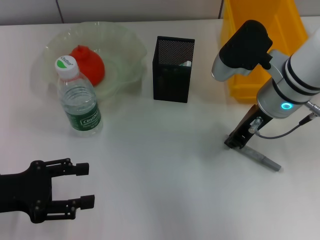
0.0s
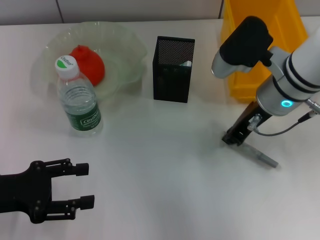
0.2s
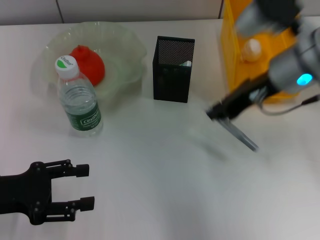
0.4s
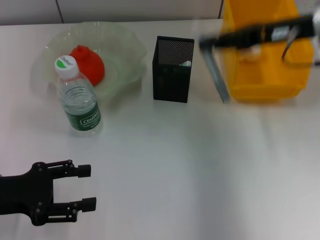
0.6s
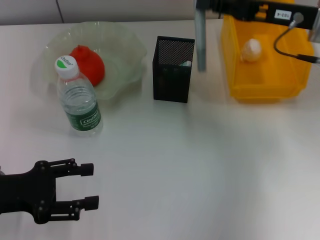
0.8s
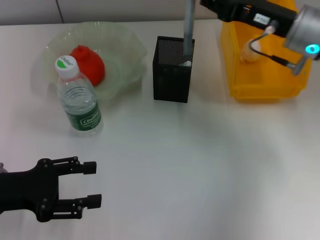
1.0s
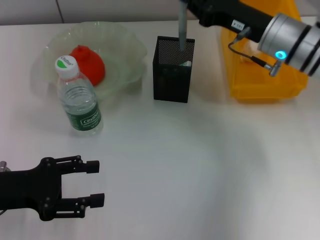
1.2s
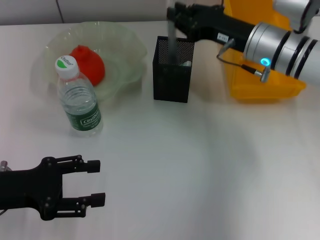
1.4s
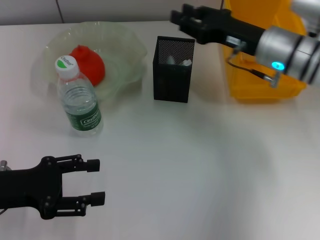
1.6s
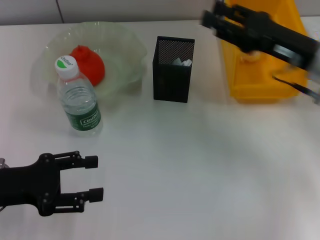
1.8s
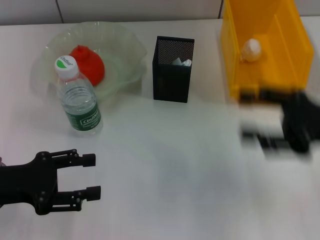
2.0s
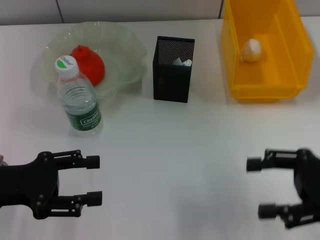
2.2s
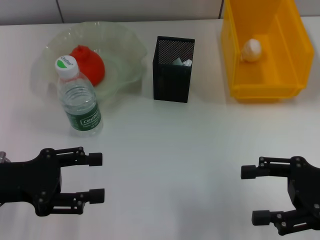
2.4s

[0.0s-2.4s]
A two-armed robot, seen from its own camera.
Step, 0.2s to 1.4s: Place the gray glue into the pen holder with the right hand.
0.0s to 1.2s: The right gripper reaches roughly 10 cm upward, then returns.
1.2s to 2.4s: The right gripper heads backward and to the right, covering about 20 cm, and opens up.

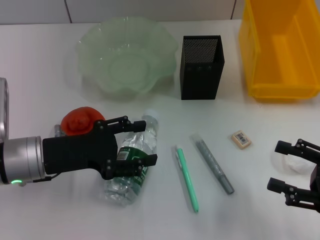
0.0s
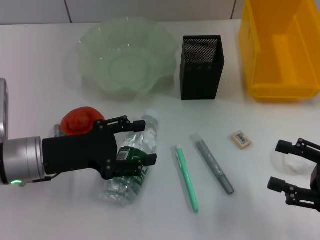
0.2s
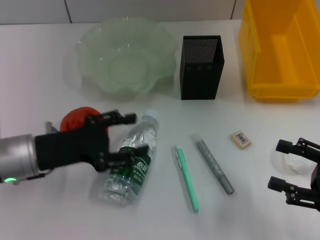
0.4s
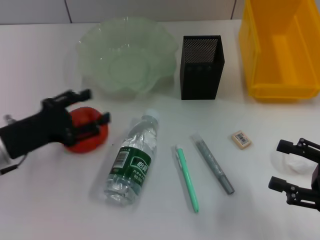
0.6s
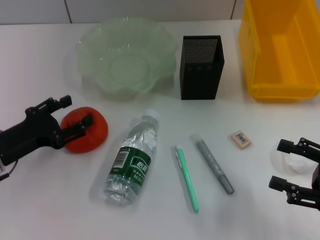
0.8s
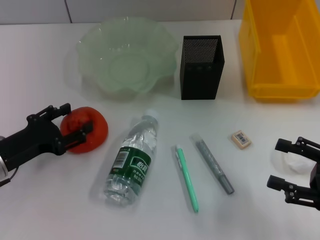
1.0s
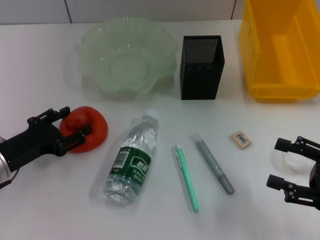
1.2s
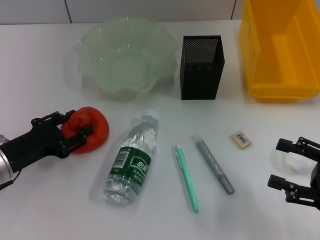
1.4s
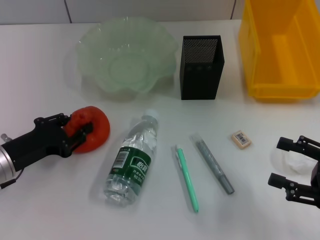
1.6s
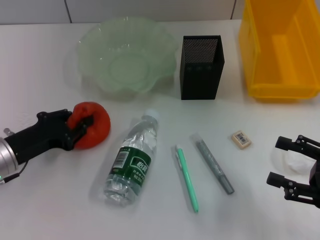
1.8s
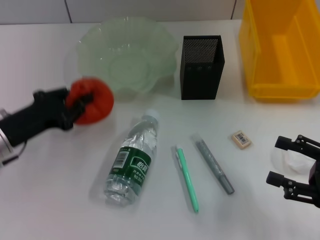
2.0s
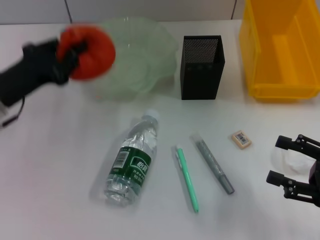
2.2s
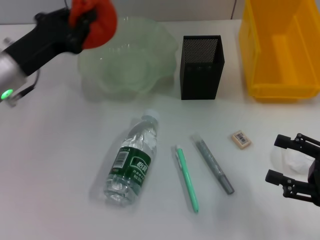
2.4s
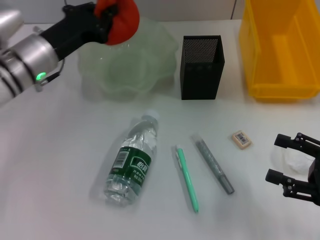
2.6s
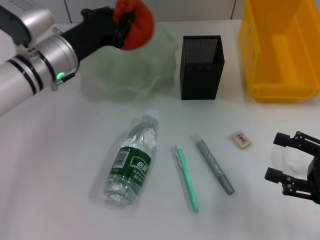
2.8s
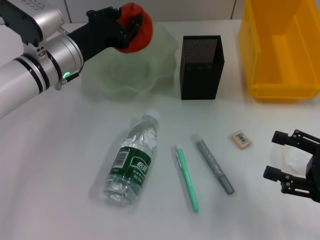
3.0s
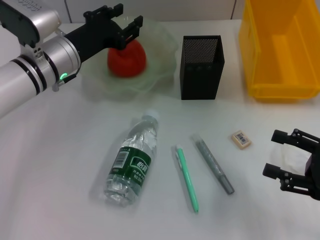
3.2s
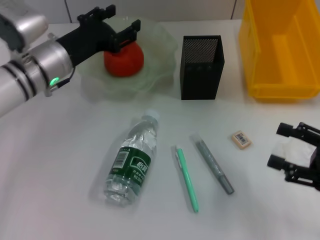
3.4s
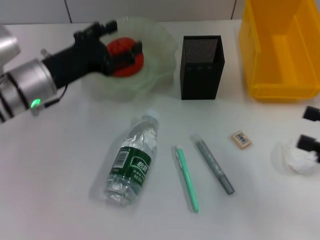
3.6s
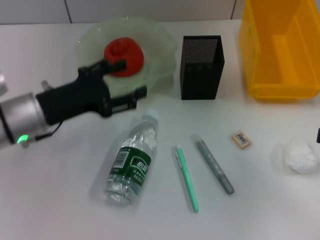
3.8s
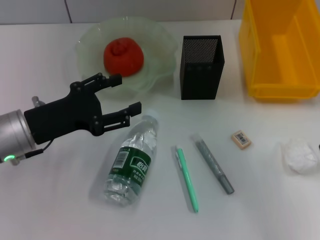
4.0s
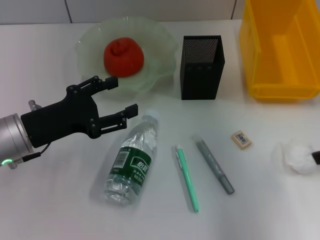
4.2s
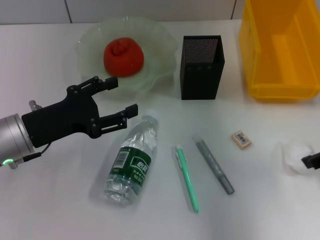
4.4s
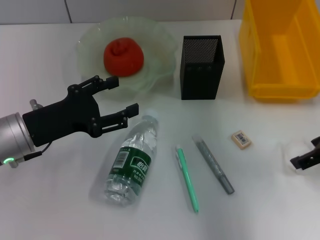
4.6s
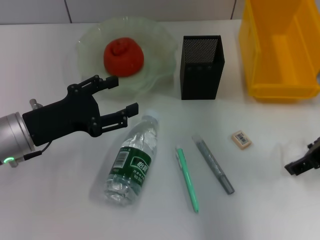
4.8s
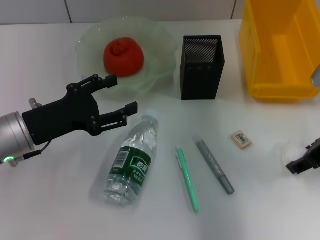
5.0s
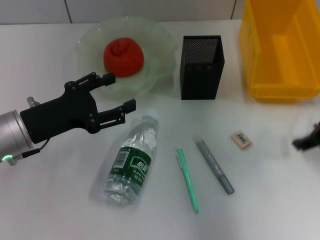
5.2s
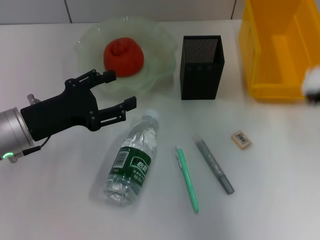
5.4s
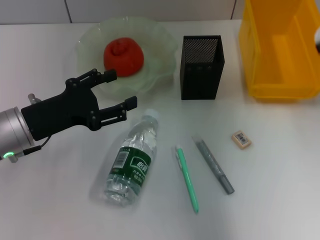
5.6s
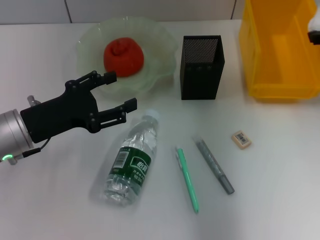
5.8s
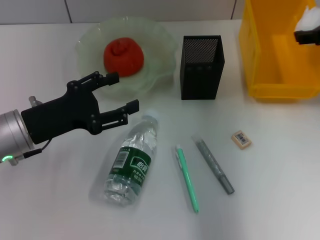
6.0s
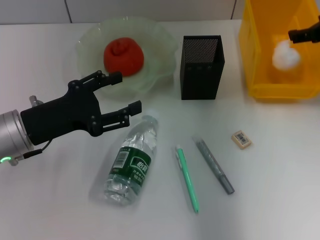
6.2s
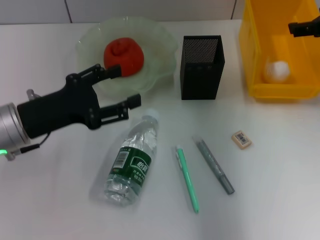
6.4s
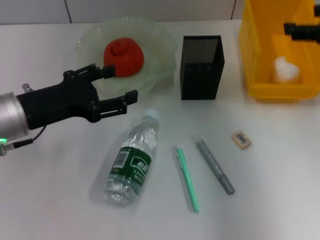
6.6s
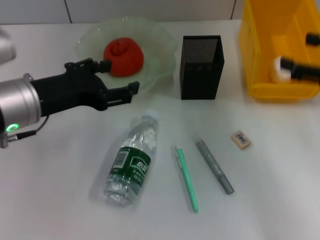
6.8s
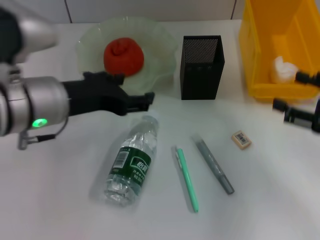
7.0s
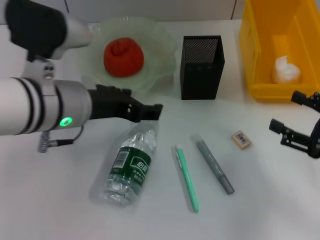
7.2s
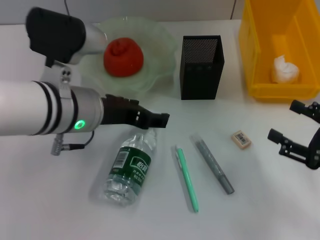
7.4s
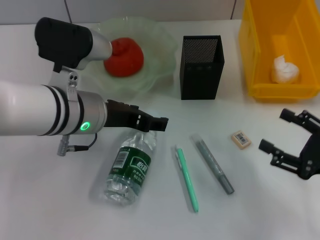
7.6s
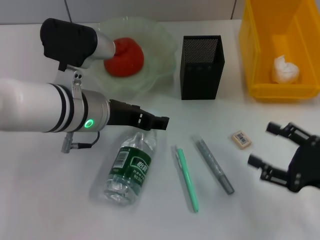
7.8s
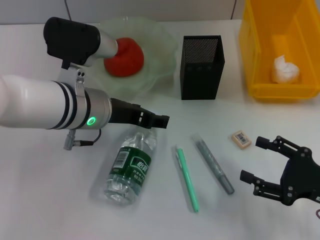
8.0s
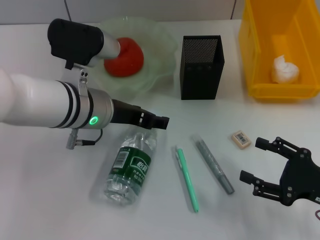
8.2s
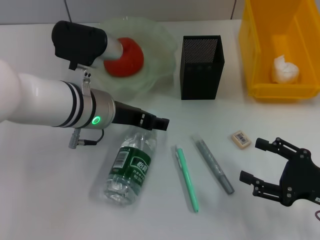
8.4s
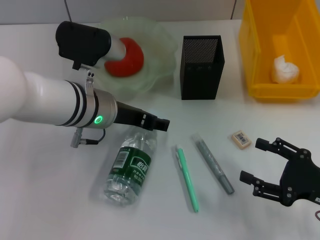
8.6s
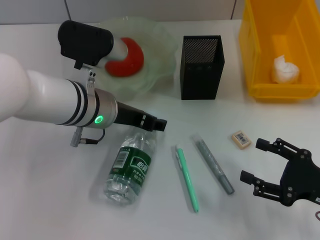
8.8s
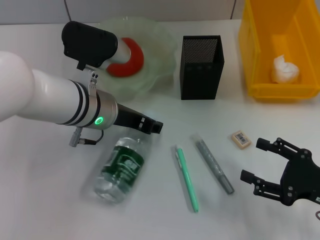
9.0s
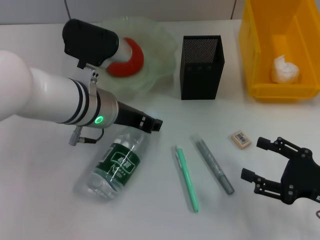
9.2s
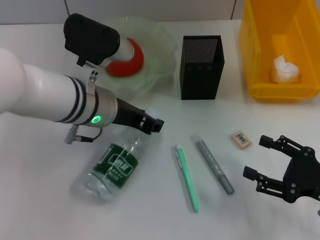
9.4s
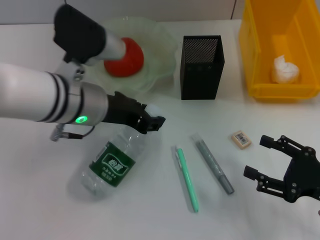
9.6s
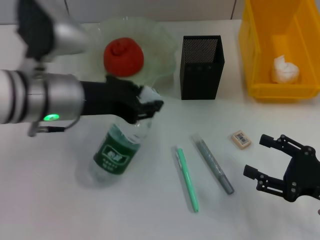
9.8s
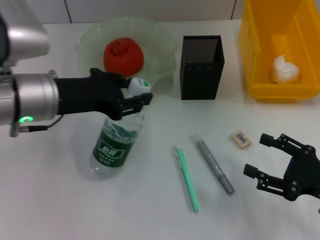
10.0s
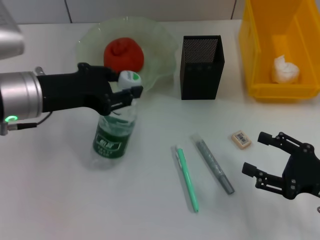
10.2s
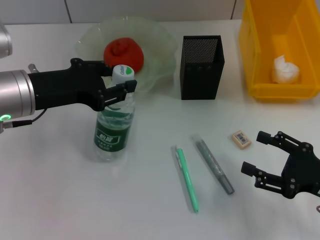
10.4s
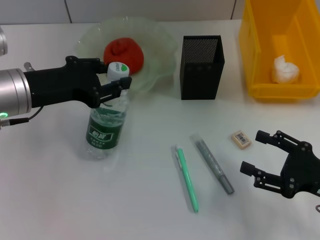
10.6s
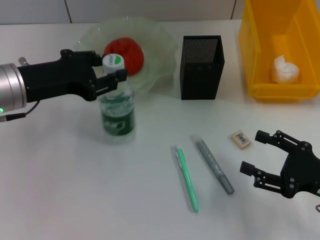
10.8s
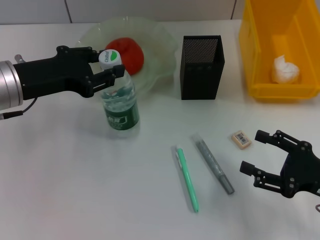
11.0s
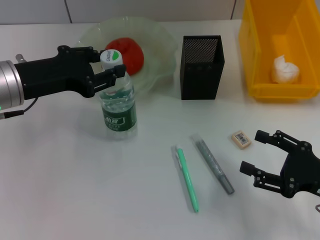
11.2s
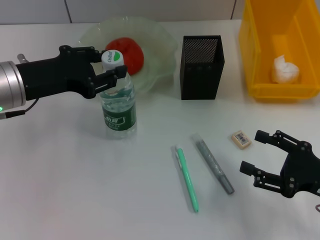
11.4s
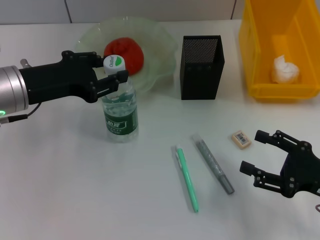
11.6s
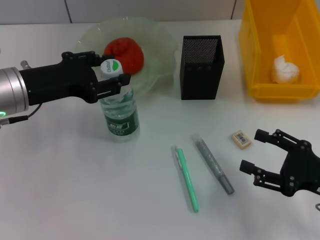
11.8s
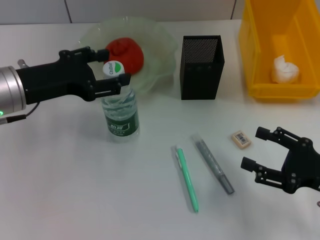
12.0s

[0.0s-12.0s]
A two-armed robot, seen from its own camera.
Step, 0.0s to 1.2s: Grab the orange with the left hand.
Step, 1.4s to 3.0s: Place the orange into the fruit bowl with the left hand.
Step, 3.2s to 4.8s: Grab the paper ball with the right hand.
Step, 5.0s to 6.2s: Place the paper ball into the trash can with the right hand.
Step, 6.4s to 9.0s: Grab the water bottle with the left hand.
Step, 9.2s to 11.8s: Place the water bottle on the table with the left hand.
0.0s to 1.6s: The left gripper heads to the left, covering approximately 5 cm.
1.6s to 3.0s: The left gripper travels forward, to the right and upward by about 20 cm, and closes.
3.0s to 4.4s: The right gripper goes approximately 15 cm upward and forward. Meanwhile the left gripper heads backward and to the left, covering approximately 15 cm, and opens up.
4.4s to 6.0s: The right gripper is displaced forward by about 10 cm.
6.0s to 7.6s: The right gripper goes approximately 25 cm backward and downward, and opens its fingers, while the left gripper moves to the right, about 10 cm.
7.6s to 9.0s: There are only small adjustments of the grippers.
9.0s to 10.4s: The left gripper is displaced to the left by roughly 10 cm, and closes its fingers.
10.4s to 12.0s: The grippers move only a little.

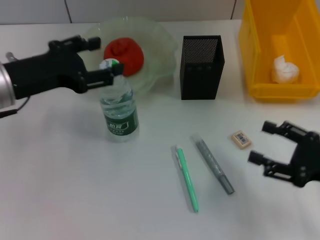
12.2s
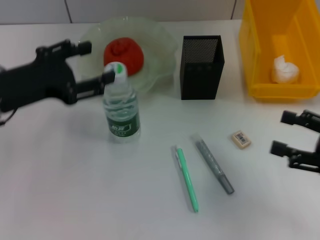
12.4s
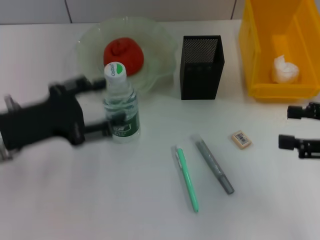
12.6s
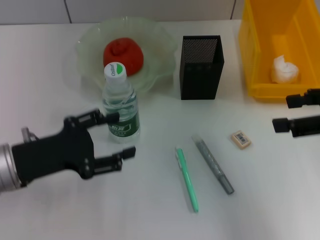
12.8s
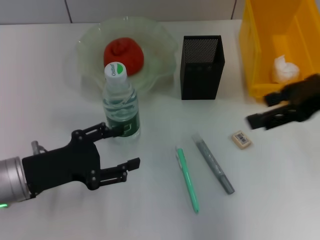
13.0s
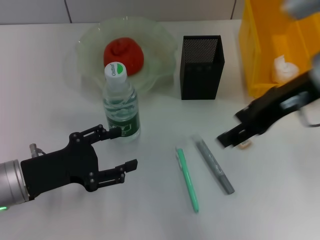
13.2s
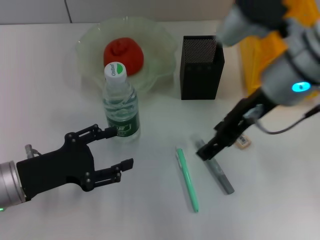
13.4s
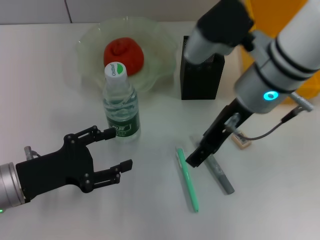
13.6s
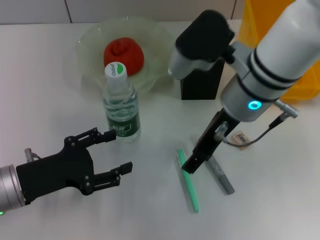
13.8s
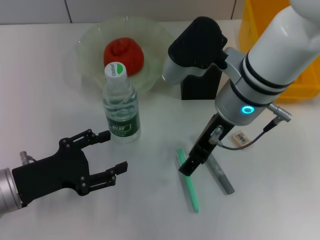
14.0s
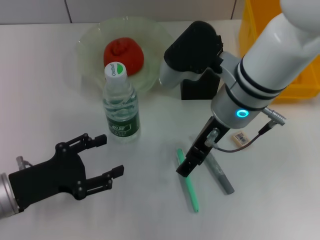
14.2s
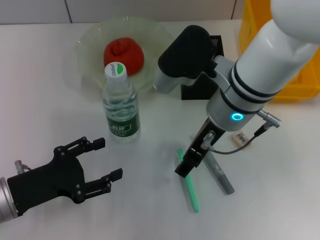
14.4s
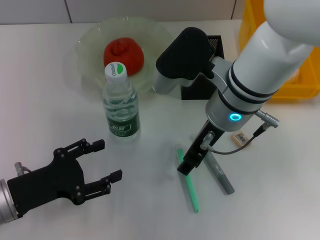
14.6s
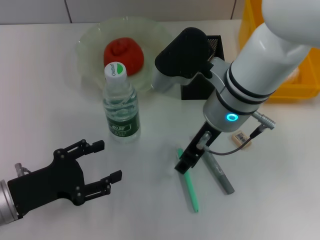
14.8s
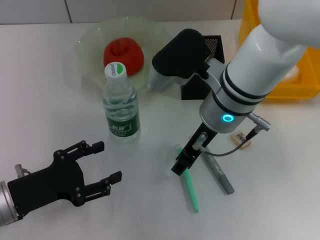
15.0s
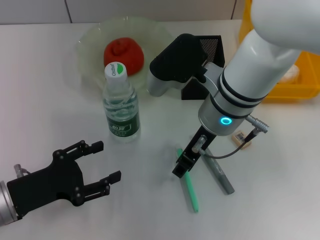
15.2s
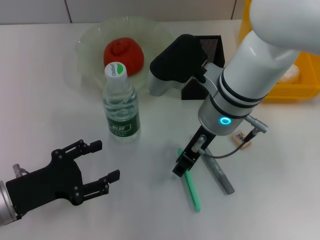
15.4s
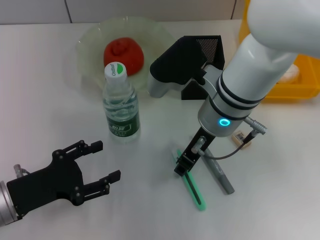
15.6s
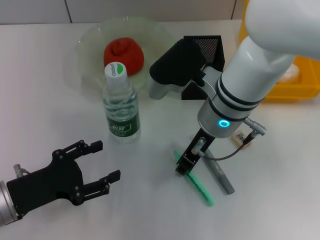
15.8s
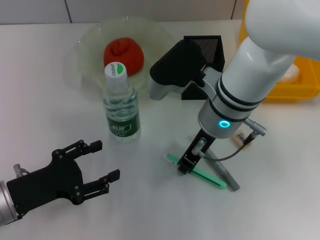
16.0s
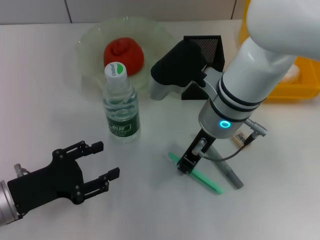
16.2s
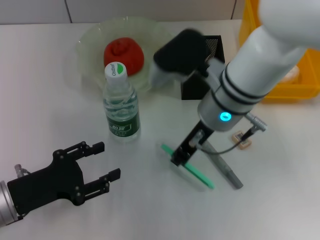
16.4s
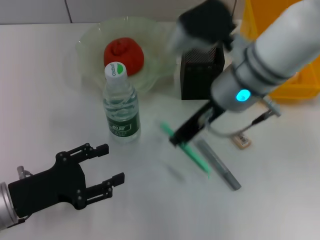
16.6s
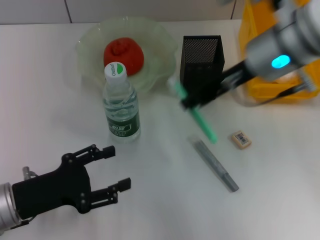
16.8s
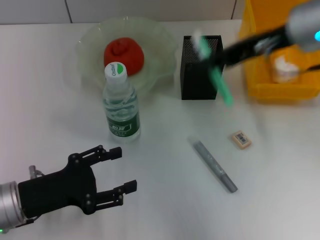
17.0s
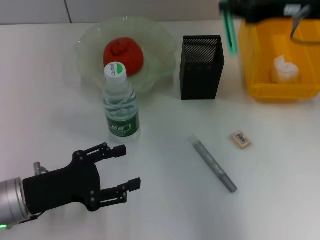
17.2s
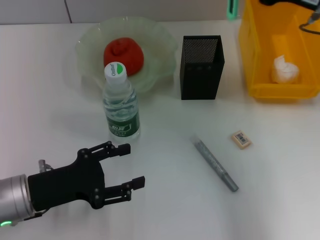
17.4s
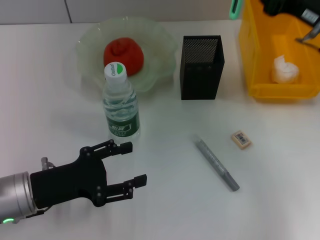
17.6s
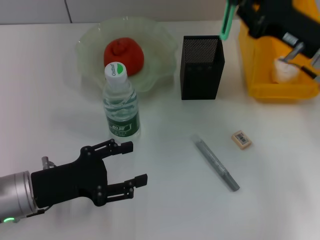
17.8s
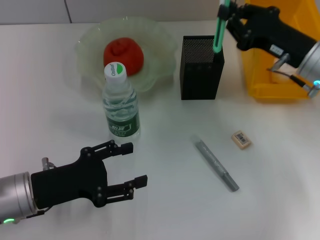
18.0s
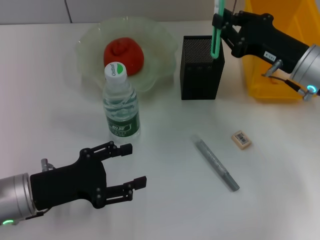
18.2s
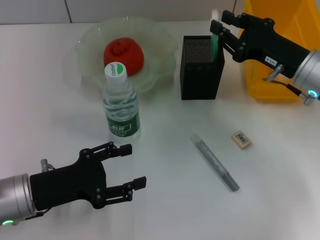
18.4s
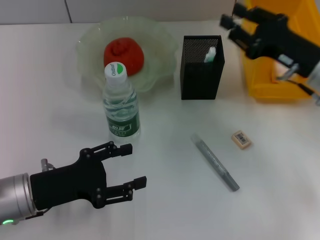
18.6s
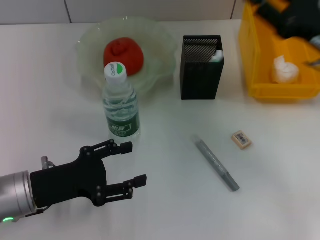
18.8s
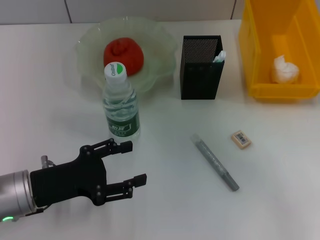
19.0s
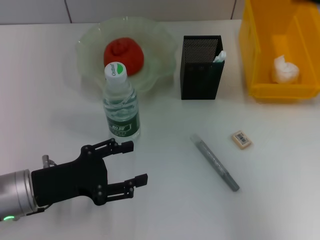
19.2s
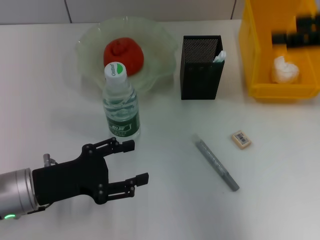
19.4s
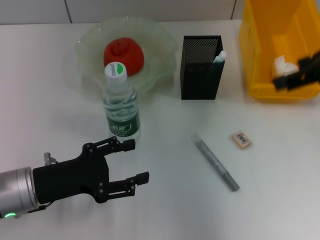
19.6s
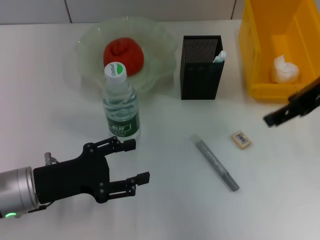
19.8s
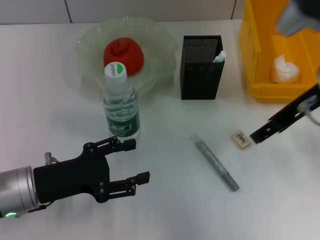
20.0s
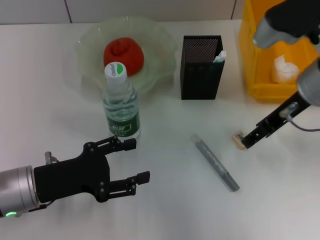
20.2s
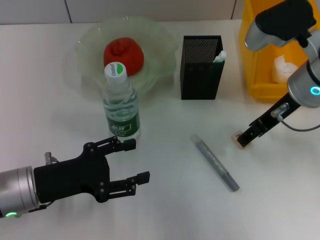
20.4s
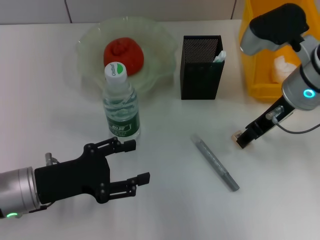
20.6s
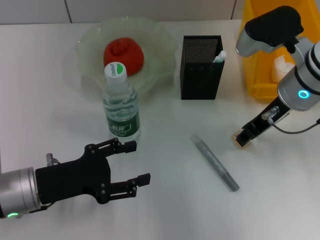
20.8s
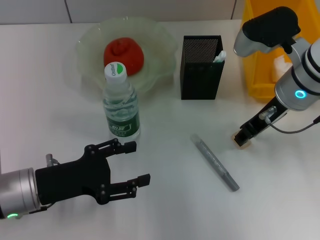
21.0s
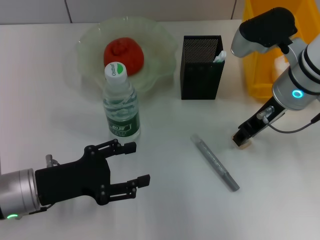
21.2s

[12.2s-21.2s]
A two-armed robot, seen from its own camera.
Step, 12.2s to 16.0s: Grab the blue utility knife with the right hand.
Step, 16.4s to 18.6s: Place the blue utility knife into the pen holder with the right hand.
12.2s to 13.8s: The left gripper heads downward and backward, covering some 15 cm, while the right gripper moves to the left, forward and upward, approximately 25 cm.
13.8s to 15.2s: The right gripper closes up.
15.2s to 16.6s: The right gripper closes its fingers.
16.6s to 18.2s: The right gripper is displaced to the right and downward by some 15 cm.
18.2s to 19.8s: The right gripper goes about 15 cm upward, and opens up.
19.8s to 21.2s: The right gripper moves downward and to the left, approximately 10 cm, and closes.
